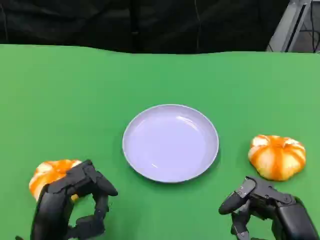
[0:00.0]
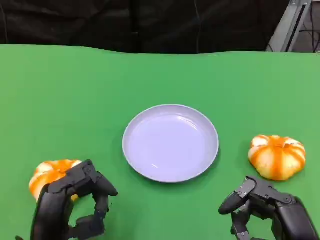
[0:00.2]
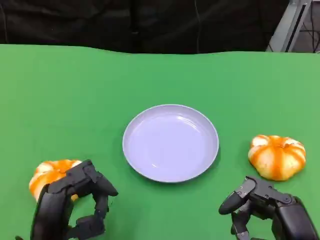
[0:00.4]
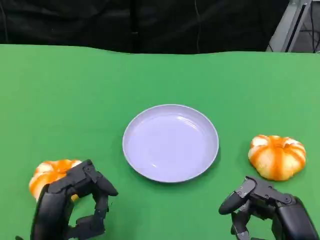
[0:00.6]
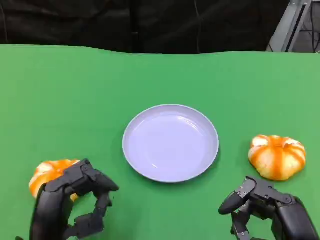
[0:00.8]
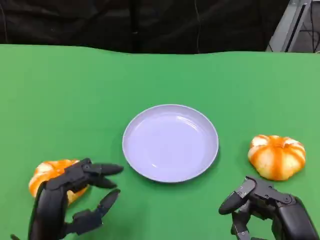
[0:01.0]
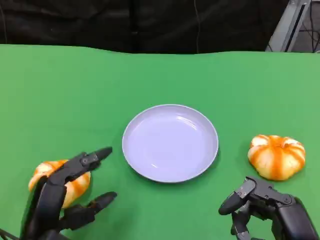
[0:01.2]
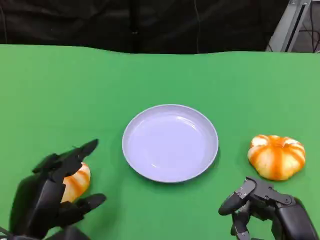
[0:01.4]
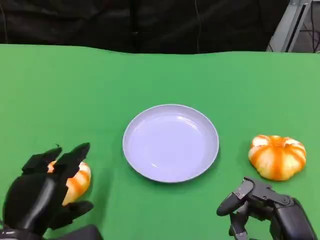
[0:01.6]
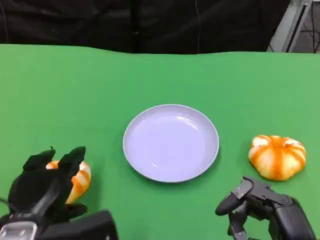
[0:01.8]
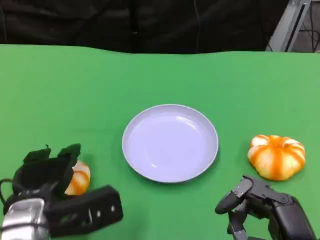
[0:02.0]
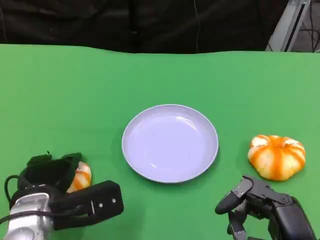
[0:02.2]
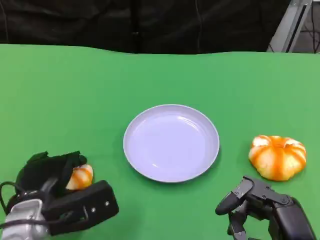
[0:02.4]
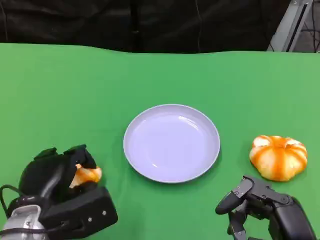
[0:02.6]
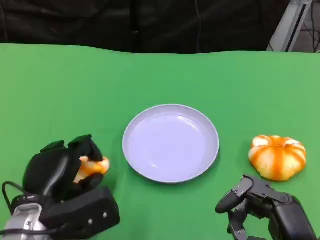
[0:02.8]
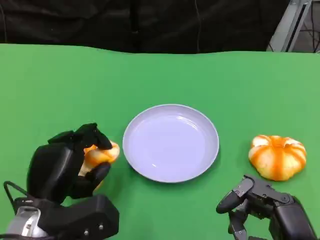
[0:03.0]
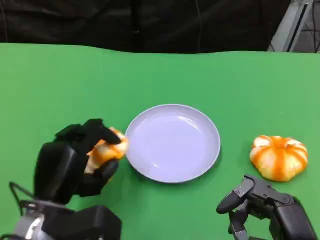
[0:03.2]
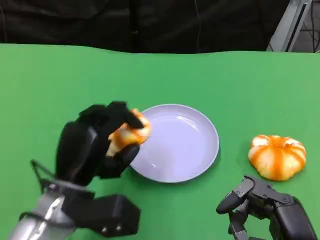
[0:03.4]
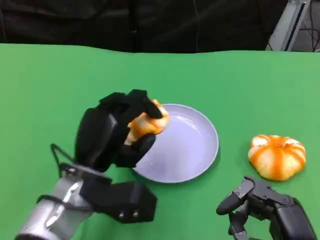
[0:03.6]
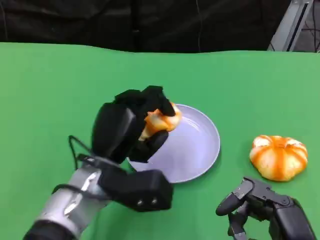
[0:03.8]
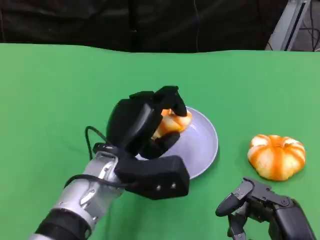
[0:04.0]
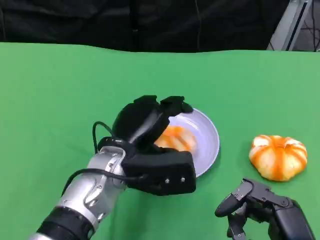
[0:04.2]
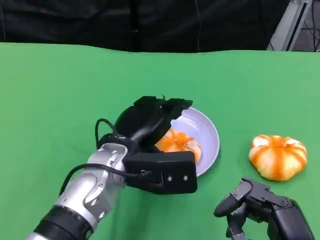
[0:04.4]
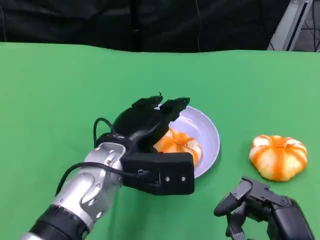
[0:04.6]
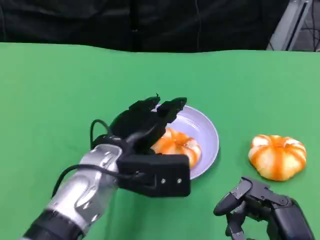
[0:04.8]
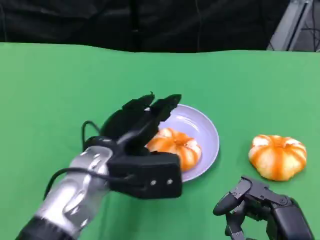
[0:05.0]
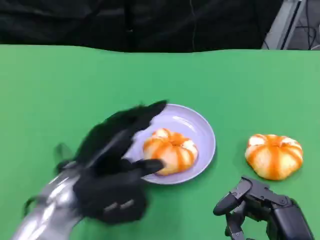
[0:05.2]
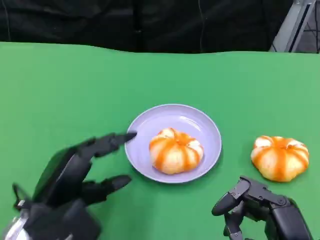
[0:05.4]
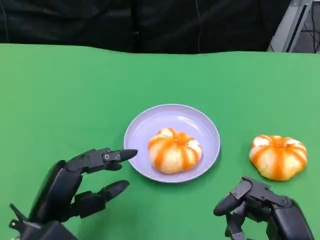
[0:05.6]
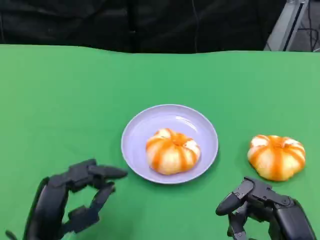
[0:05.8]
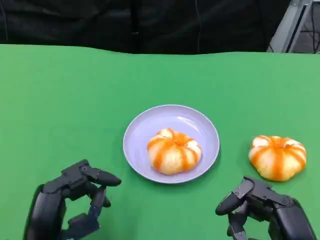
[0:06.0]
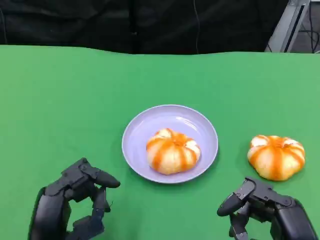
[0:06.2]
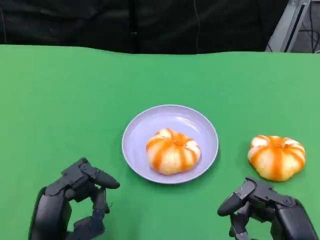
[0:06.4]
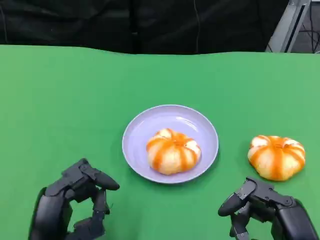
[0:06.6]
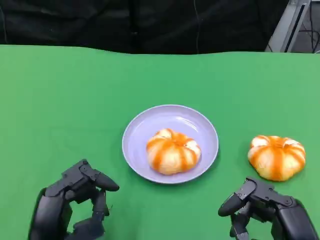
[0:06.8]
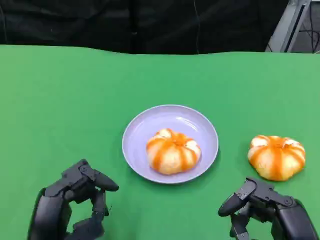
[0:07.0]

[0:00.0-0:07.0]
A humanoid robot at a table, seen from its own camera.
Task of the whole recording: Grasp the bread from the table and place it into the plate.
0:01.4 to 0:02.8: The left hand moves some 5 cm.
0:02.8 to 0:04.2: The left hand shifts about 15 cm to the right and forward.
0:04.2 to 0:05.6: The left hand moves to the left and backward, approximately 15 cm.

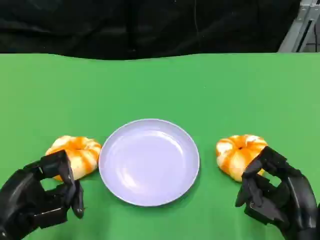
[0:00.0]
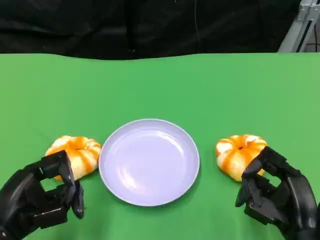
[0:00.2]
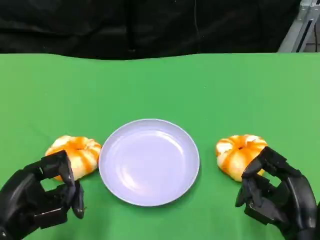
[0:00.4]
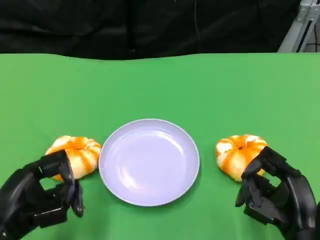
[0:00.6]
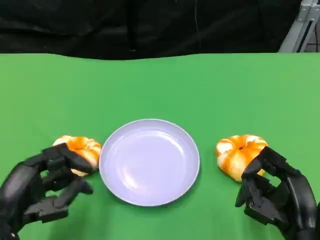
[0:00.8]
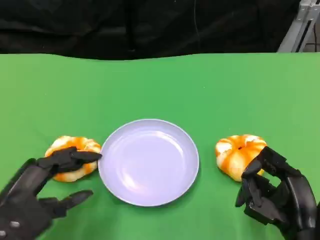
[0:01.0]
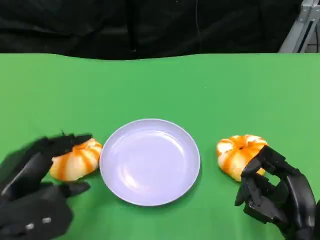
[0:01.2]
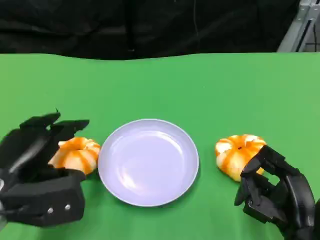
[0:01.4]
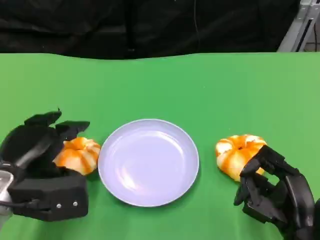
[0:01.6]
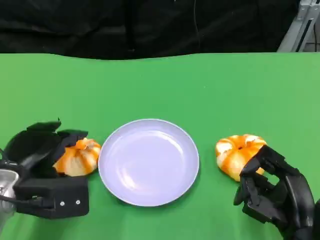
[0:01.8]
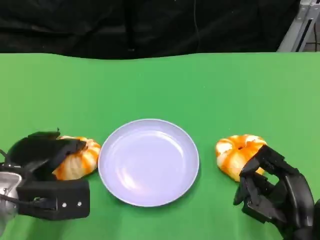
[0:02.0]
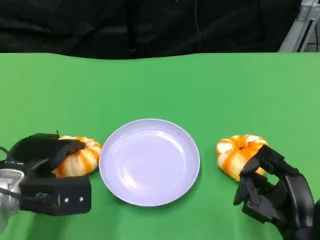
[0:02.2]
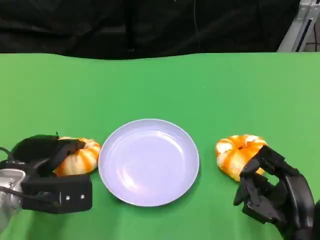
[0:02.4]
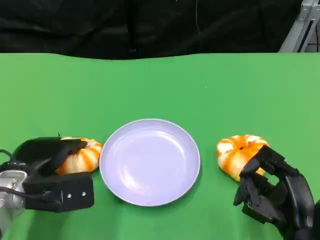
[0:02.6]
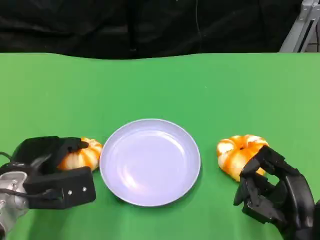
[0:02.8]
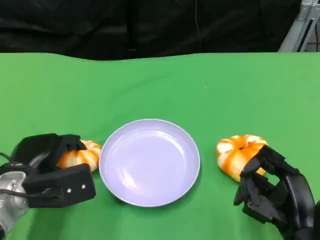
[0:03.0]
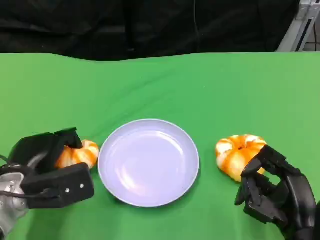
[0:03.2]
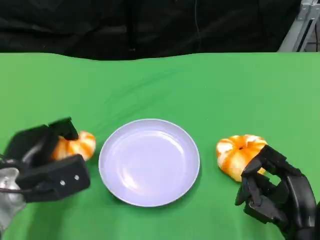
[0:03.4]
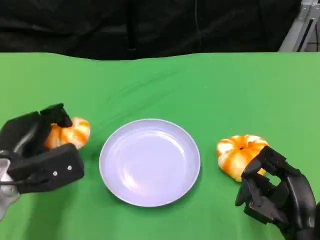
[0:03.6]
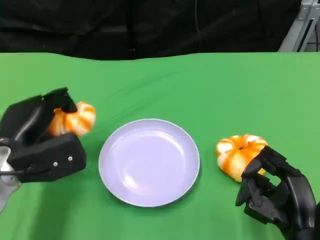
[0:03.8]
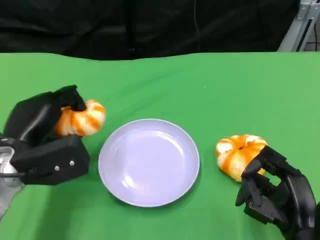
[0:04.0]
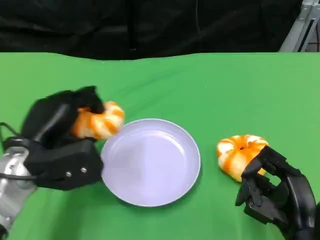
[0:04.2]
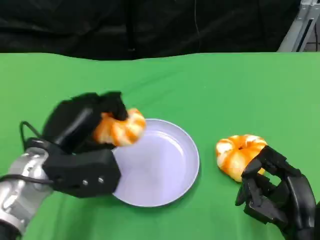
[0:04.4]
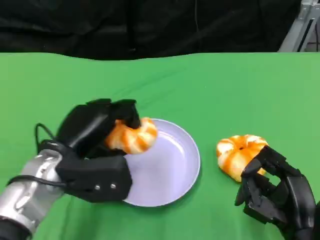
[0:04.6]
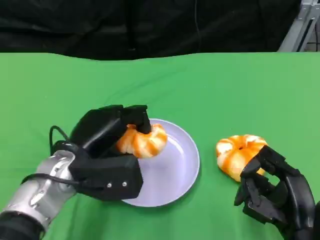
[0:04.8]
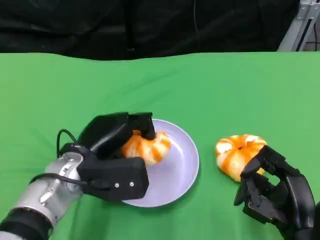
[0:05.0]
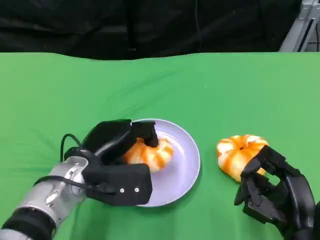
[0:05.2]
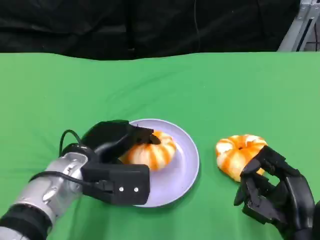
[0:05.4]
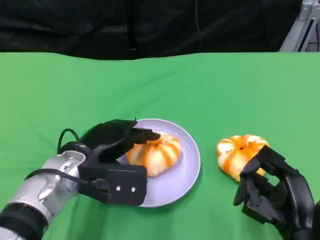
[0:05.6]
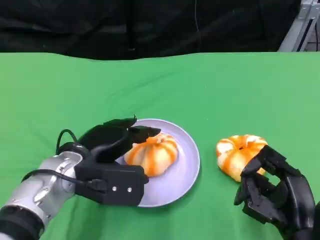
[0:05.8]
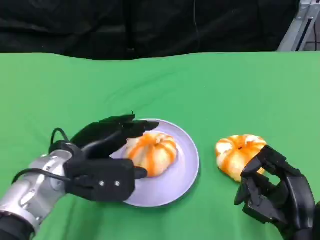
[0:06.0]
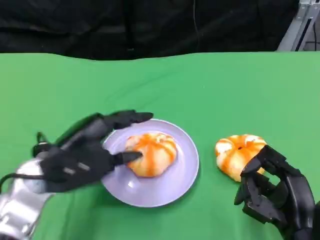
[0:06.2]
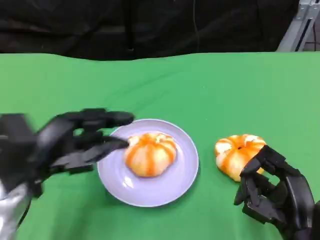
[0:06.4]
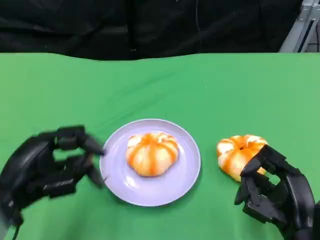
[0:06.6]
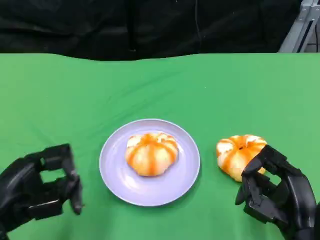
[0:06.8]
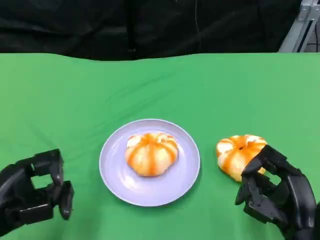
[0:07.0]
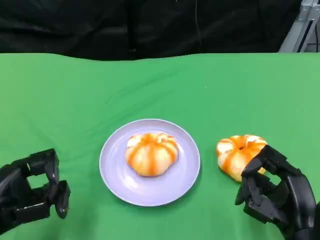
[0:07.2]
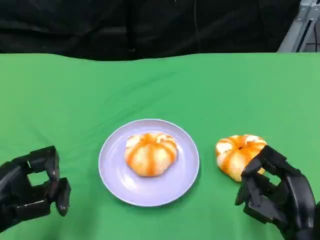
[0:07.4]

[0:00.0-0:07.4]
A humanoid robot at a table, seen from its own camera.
Task of the whole recording: Grasp the bread from the table and place it into the plate.
0:00.0 to 0:01.4: The left hand heads forward, covering some 5 cm.
0:01.4 to 0:03.0: The left hand is displaced downward by roughly 5 cm.
0:03.0 to 0:04.4: The left hand is displaced upward by about 5 cm.
0:06.0 to 0:07.4: The left hand is displaced to the left and backward by some 15 cm.

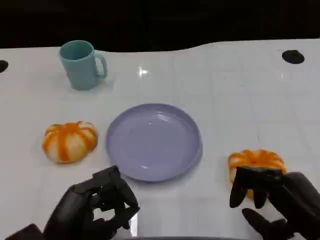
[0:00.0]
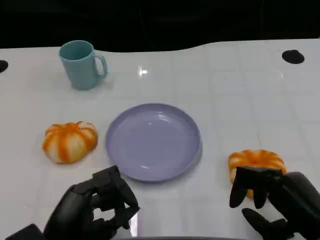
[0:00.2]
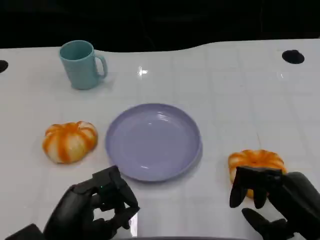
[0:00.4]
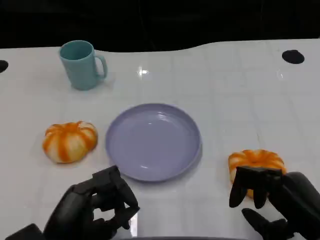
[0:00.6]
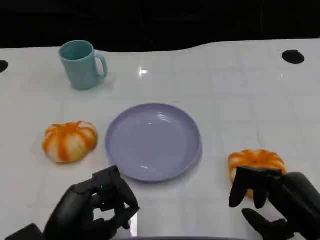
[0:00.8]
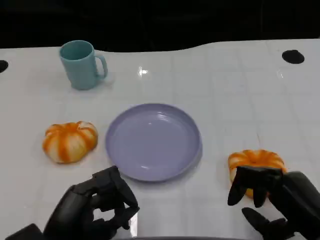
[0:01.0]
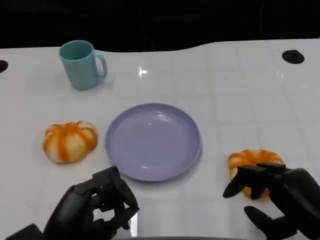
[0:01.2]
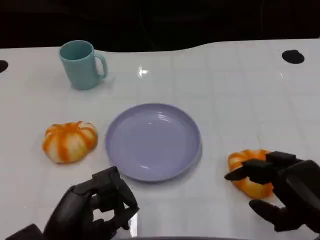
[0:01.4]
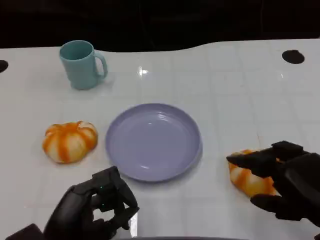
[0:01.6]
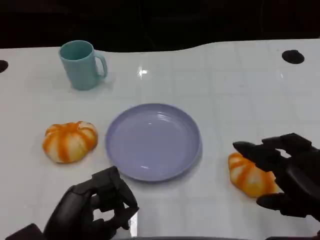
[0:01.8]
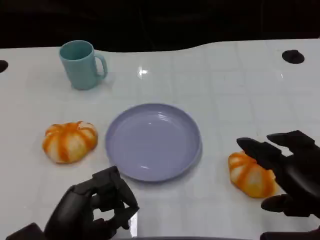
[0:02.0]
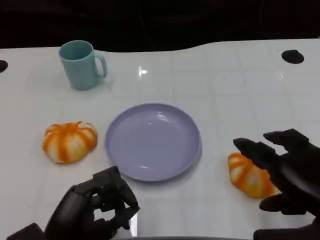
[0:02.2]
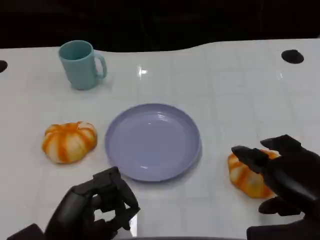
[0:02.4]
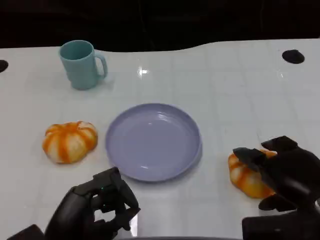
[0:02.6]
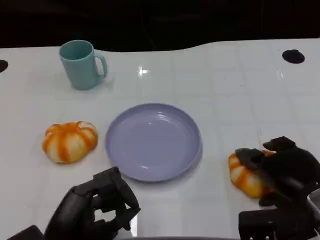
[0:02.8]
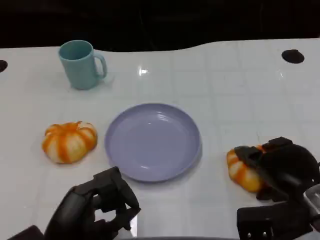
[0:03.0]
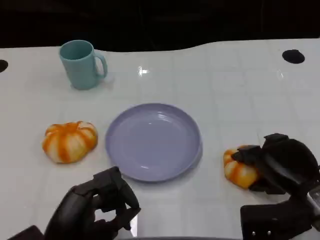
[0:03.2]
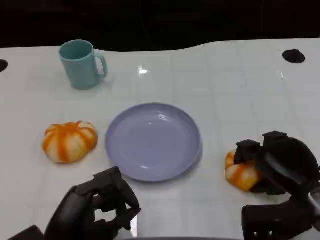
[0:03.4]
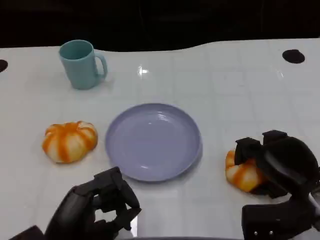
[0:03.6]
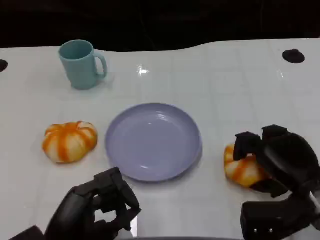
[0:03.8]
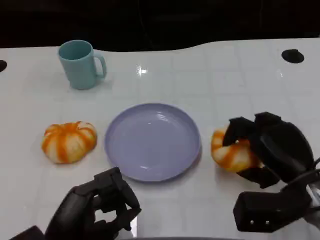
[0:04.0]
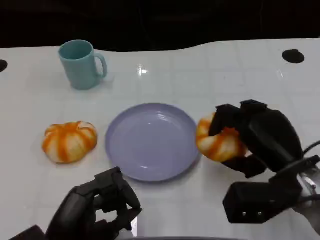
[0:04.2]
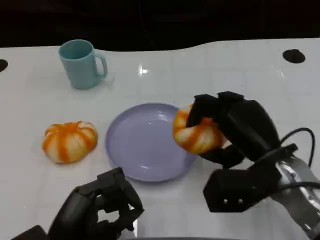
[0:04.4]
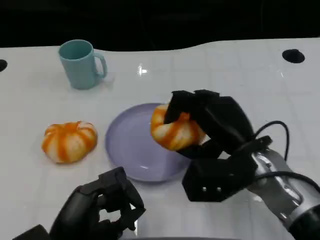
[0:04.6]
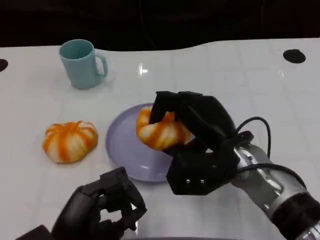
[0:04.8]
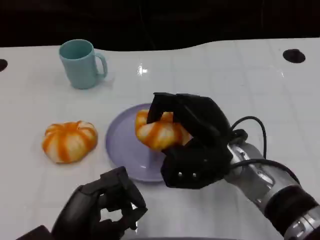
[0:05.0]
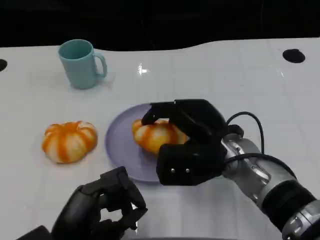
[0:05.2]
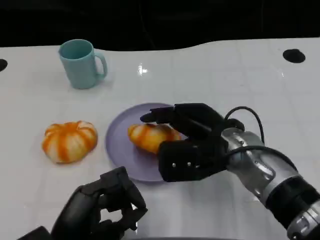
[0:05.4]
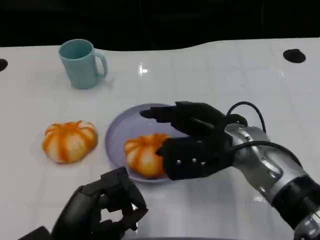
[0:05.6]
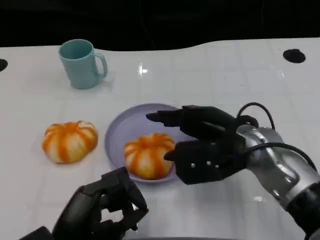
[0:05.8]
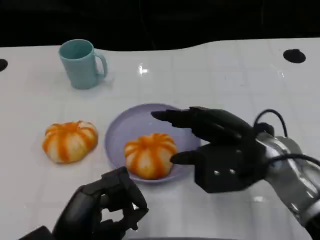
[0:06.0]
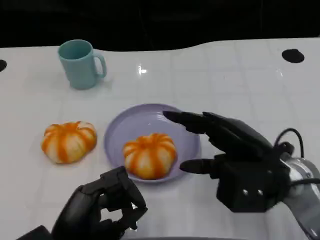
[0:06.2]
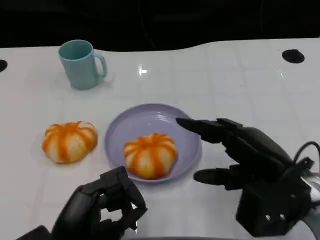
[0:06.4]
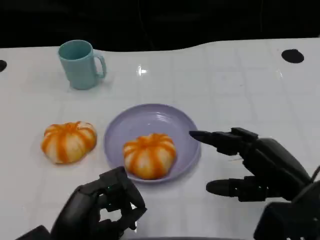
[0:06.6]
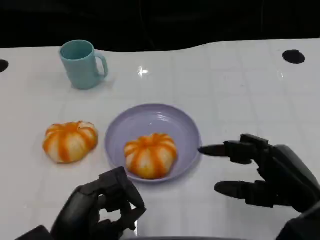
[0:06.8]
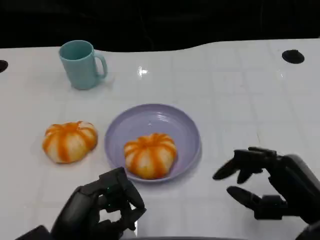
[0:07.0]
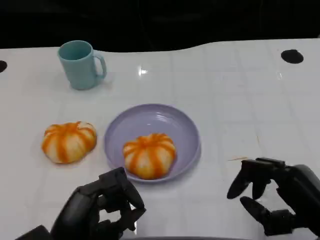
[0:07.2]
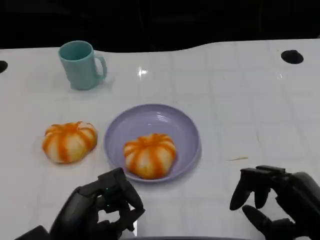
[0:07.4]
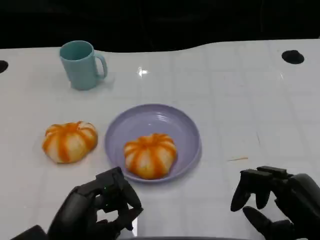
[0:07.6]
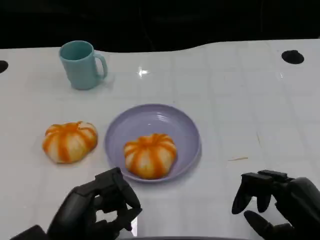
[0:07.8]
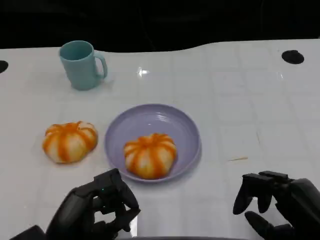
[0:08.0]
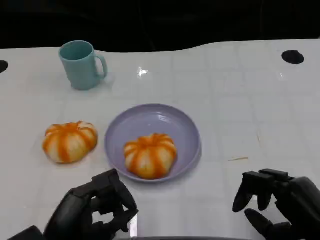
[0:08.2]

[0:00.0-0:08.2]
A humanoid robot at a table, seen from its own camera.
Task of the whole recording: Grasp the bread from the table and place it into the plate.
0:01.6 to 0:03.2: The right hand heads forward and downward, covering about 10 cm.
0:03.2 to 0:05.0: The right hand is displaced to the left by about 15 cm.
0:05.0 to 0:06.6: The right hand moves to the right and backward, about 15 cm.
0:06.6 to 0:08.2: The right hand heads backward, covering roughly 5 cm.
